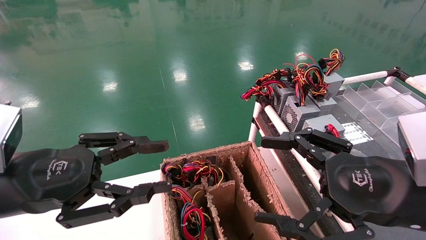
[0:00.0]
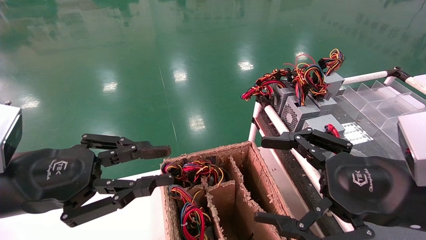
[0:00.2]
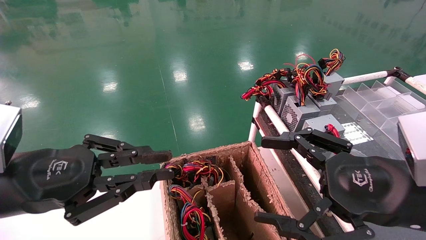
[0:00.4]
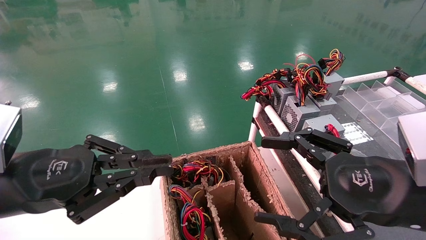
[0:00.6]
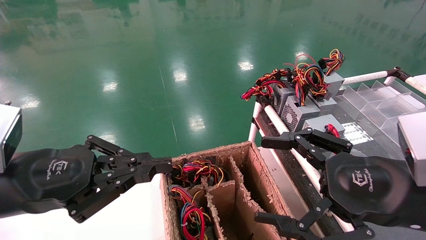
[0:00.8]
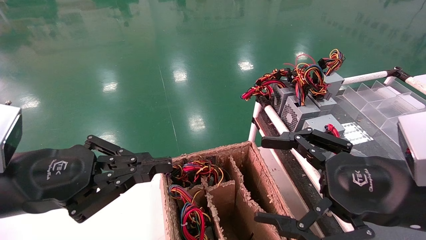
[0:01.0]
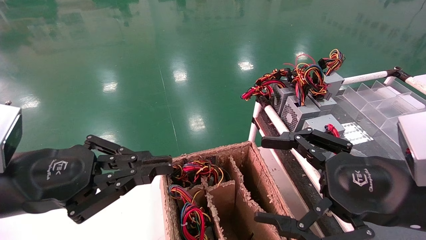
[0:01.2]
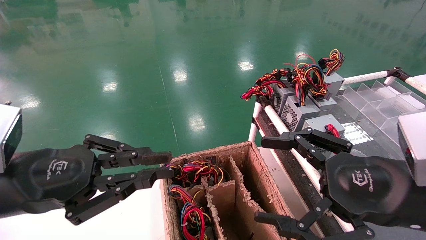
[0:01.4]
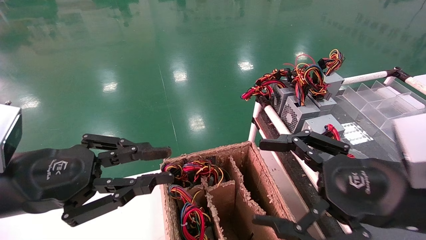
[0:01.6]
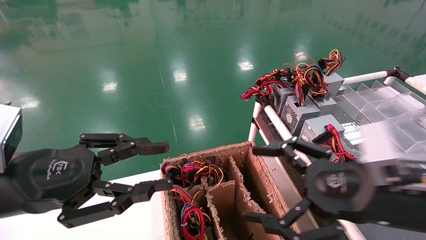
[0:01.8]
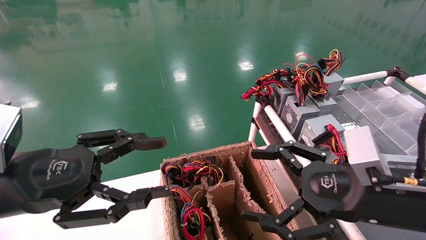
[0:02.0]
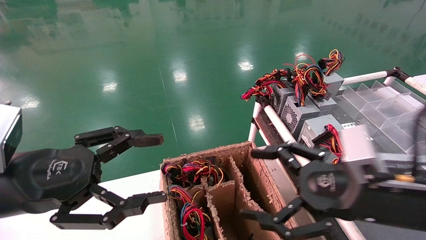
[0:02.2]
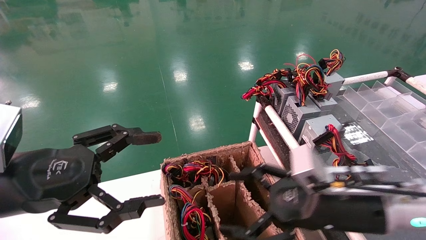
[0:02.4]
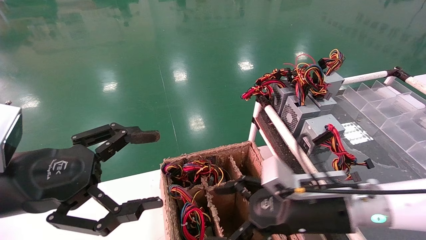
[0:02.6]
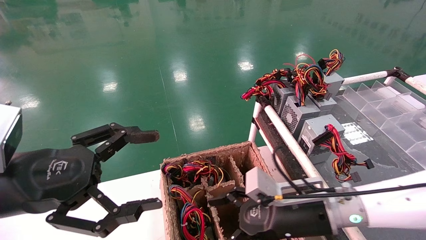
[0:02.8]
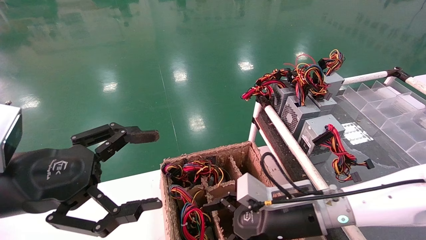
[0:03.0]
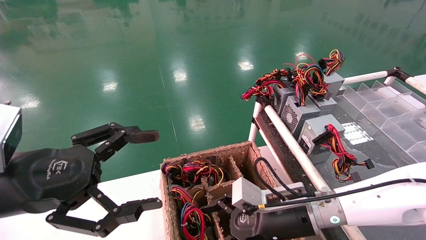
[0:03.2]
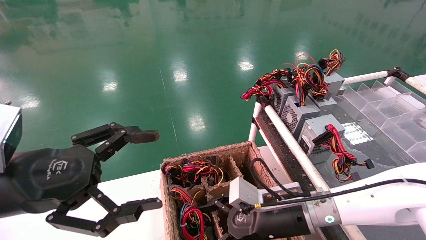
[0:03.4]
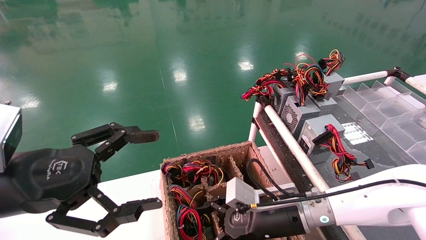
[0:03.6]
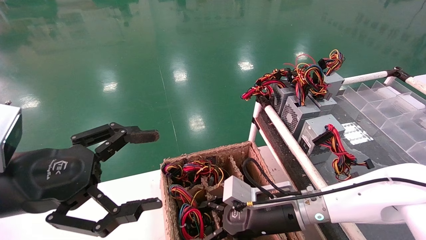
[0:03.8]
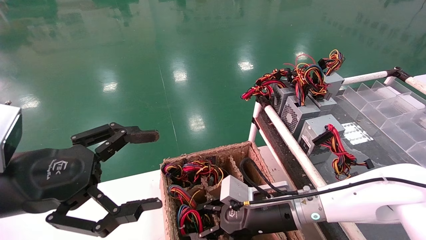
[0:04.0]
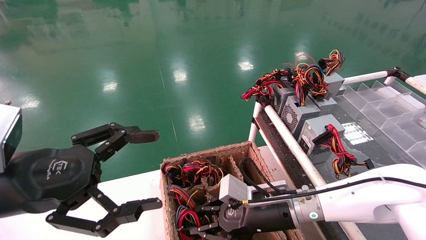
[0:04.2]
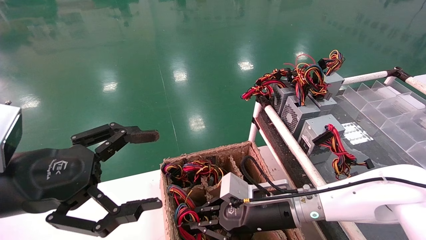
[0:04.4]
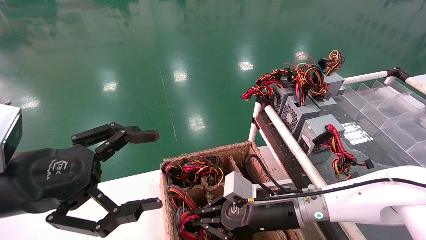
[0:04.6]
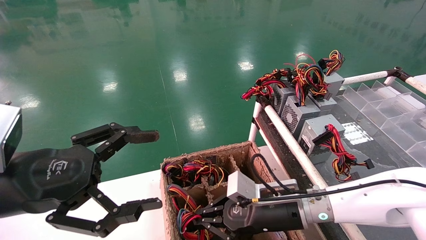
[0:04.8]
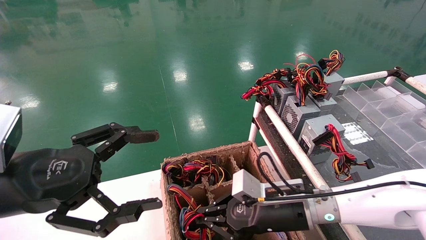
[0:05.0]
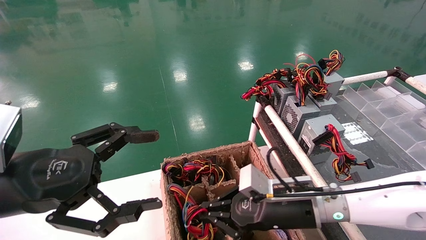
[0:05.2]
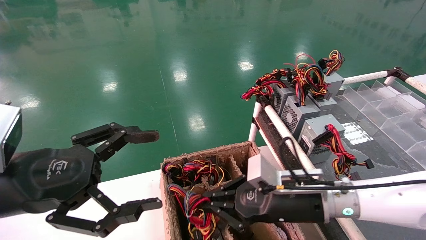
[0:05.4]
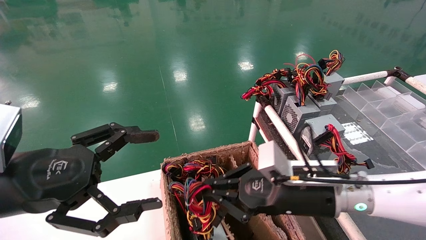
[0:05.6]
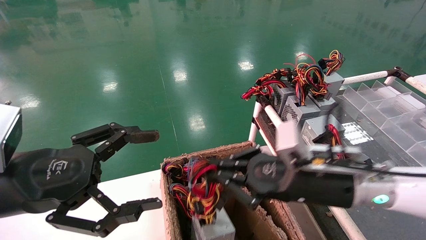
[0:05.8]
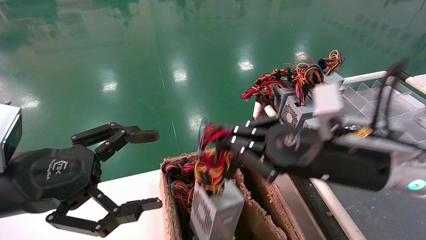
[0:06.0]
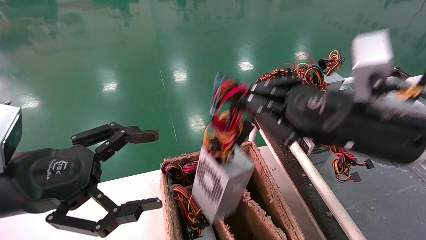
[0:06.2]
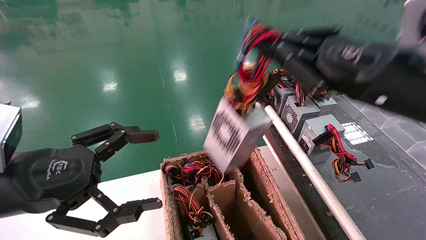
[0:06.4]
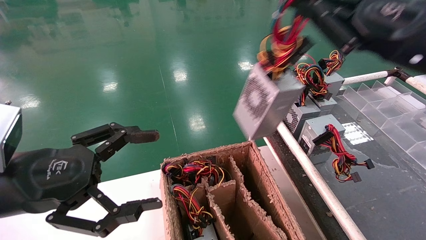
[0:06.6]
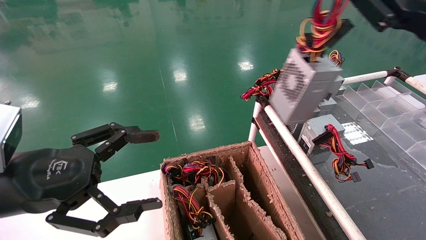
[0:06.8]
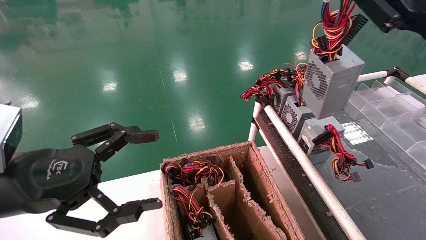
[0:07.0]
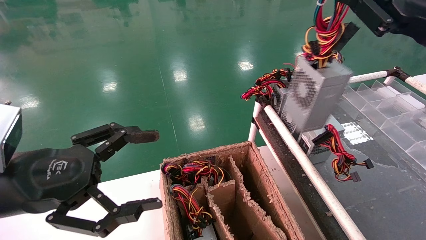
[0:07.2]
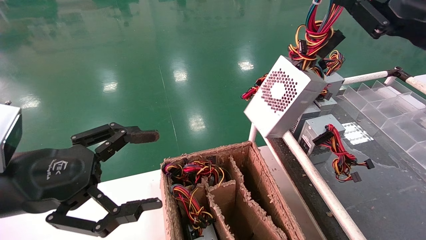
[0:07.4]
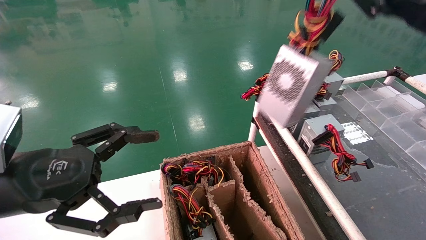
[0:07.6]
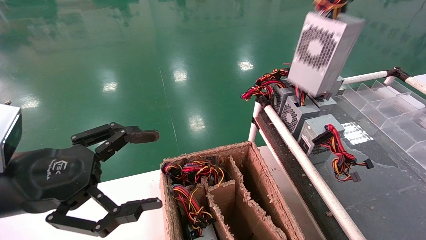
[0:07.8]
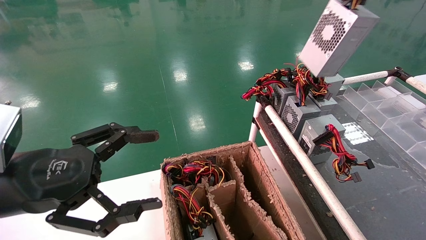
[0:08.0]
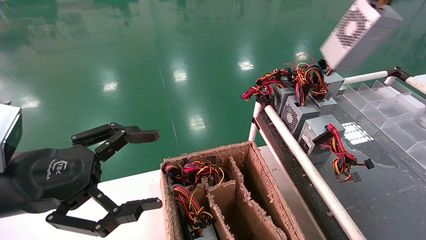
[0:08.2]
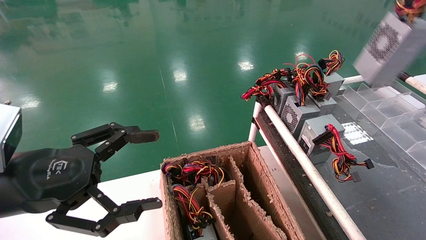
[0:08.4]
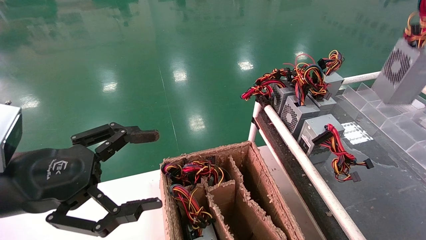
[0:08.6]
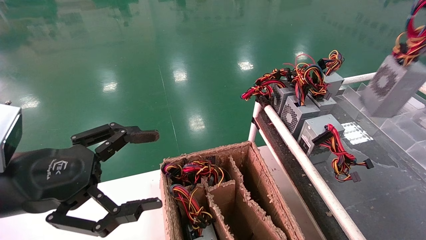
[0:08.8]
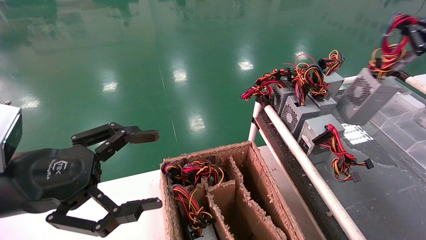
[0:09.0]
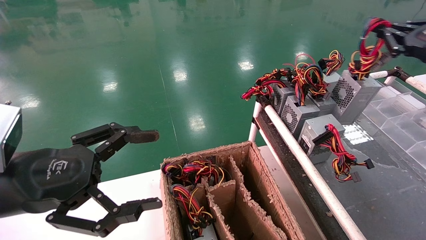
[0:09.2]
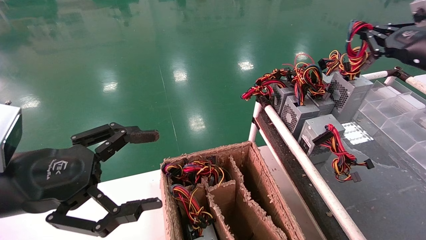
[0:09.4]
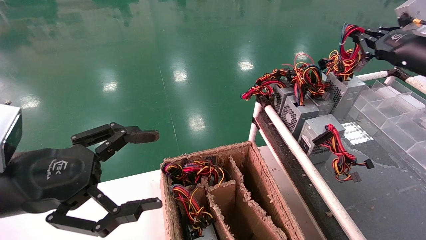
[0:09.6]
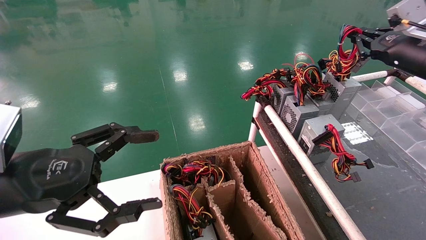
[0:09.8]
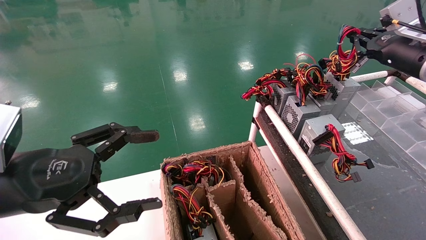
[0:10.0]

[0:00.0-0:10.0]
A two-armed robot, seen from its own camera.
Step, 0:01.0 to 0:04.6: Grab and lift the power supply from the large box.
0:00.0 to 0:01.4: The left gripper closes its fingers.
0:01.4 to 0:02.8: The left gripper opens up; the right gripper moves downward, forward and to the left, about 20 cm.
0:02.8 to 0:04.2: The right gripper shifts by about 5 cm, and closes.
0:04.2 to 0:05.8: The right gripper is displaced upward, to the right and backward by roughly 15 cm, and closes its fingers.
0:05.8 to 0:07.2: The right gripper moves upward and to the right, some 25 cm.
0:07.2 to 0:08.6: The right gripper is displaced to the right and forward by about 15 cm.
0:08.6 to 0:10.0: The right gripper travels forward, to the left and downward by some 15 cm.

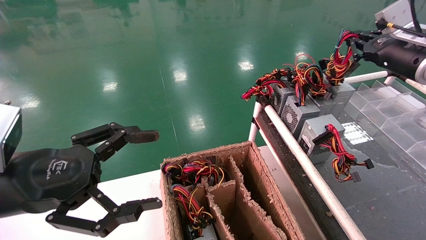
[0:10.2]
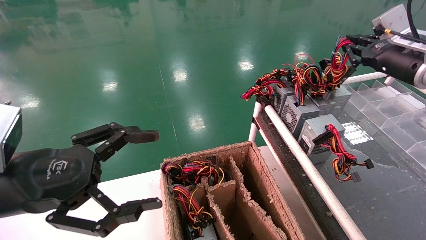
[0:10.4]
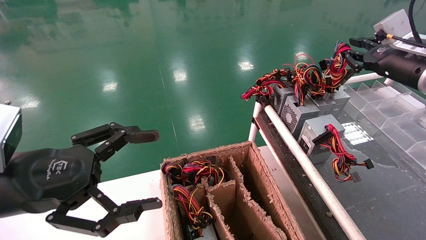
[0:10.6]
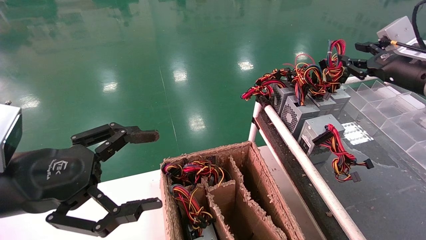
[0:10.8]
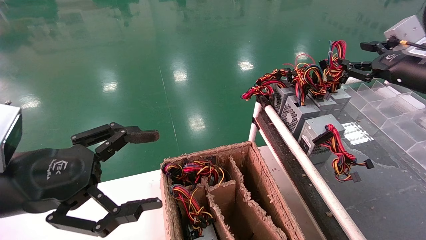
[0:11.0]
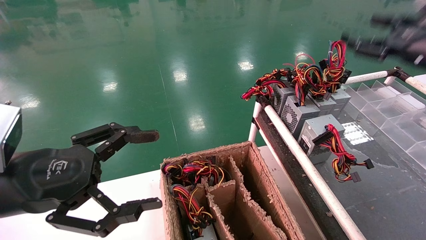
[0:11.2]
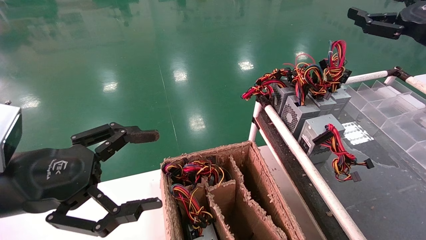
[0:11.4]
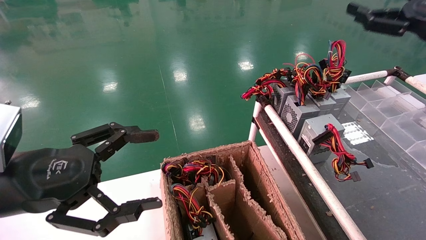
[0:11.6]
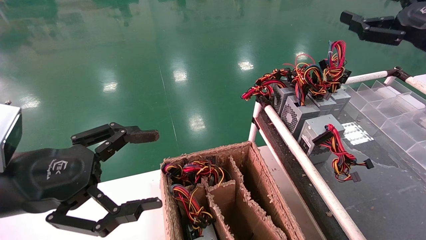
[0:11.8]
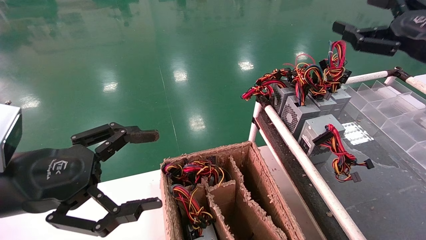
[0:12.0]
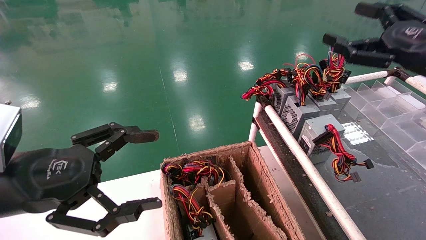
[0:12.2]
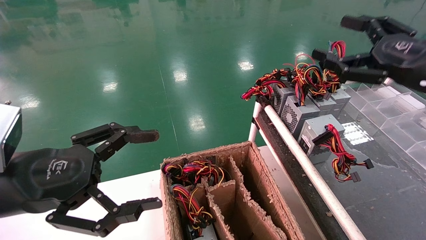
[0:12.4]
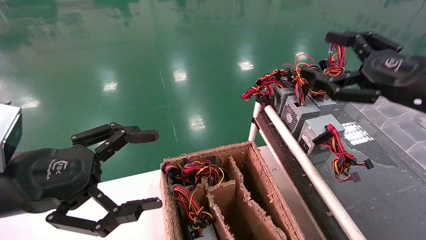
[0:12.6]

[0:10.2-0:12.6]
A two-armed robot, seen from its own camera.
0:10.2 to 0:11.4: The right gripper travels backward by approximately 5 cm, and opens up.
0:11.4 to 0:12.6: The right gripper goes roughly 10 cm backward, to the left and downward.
